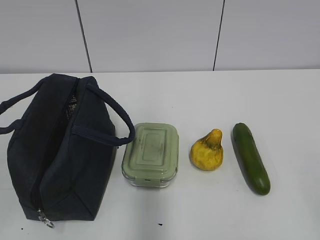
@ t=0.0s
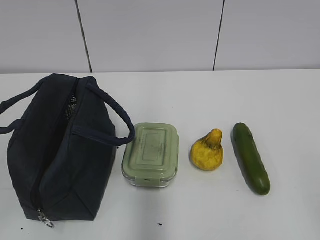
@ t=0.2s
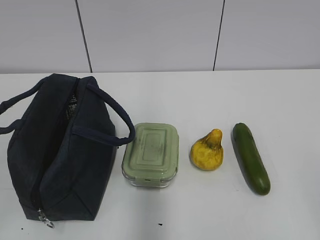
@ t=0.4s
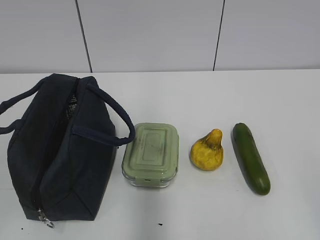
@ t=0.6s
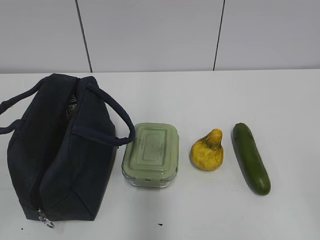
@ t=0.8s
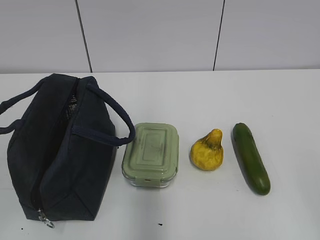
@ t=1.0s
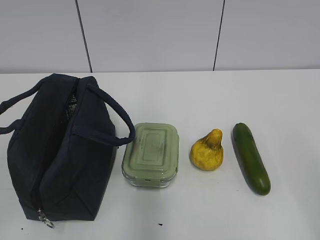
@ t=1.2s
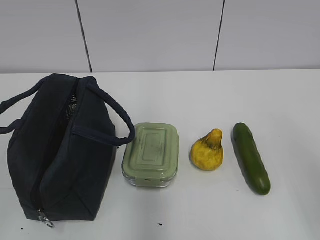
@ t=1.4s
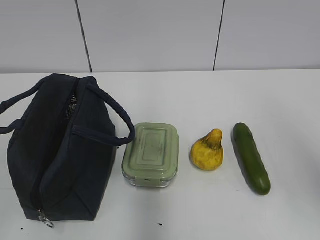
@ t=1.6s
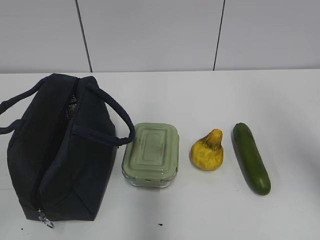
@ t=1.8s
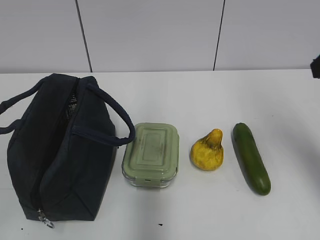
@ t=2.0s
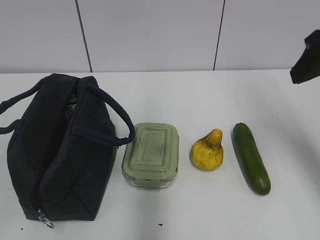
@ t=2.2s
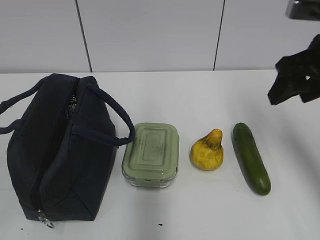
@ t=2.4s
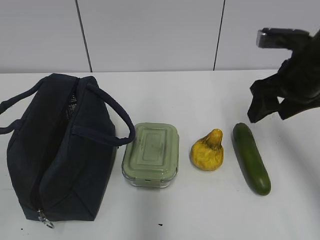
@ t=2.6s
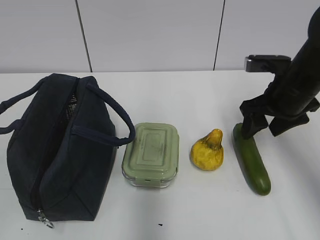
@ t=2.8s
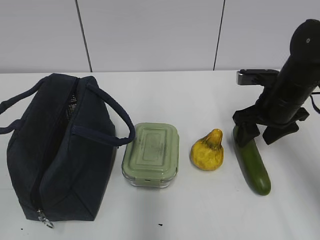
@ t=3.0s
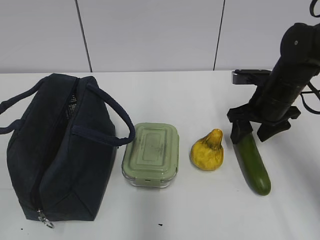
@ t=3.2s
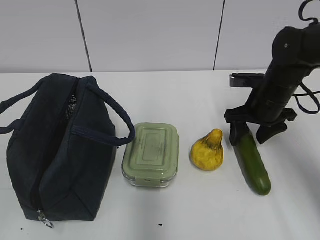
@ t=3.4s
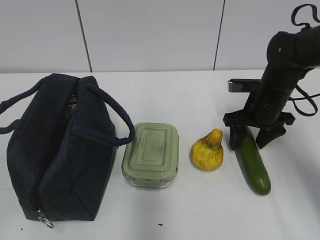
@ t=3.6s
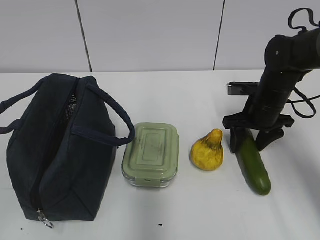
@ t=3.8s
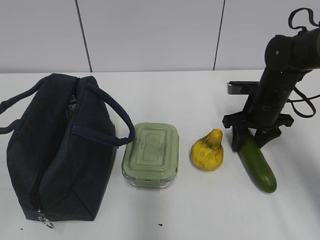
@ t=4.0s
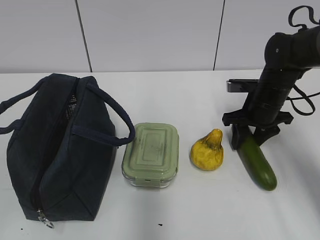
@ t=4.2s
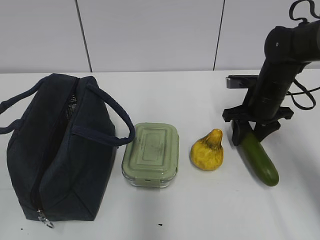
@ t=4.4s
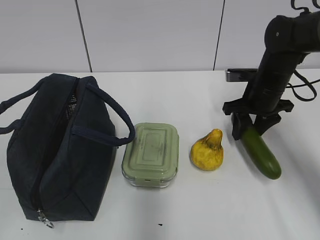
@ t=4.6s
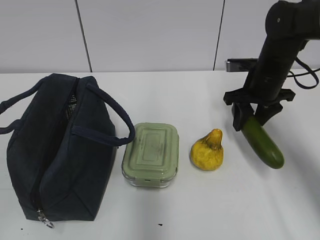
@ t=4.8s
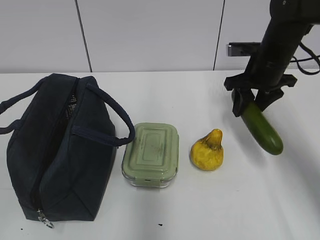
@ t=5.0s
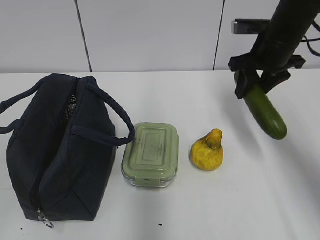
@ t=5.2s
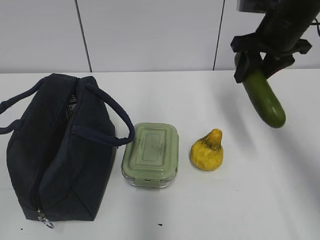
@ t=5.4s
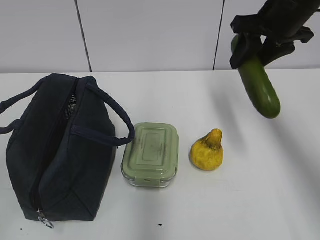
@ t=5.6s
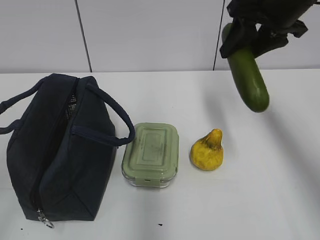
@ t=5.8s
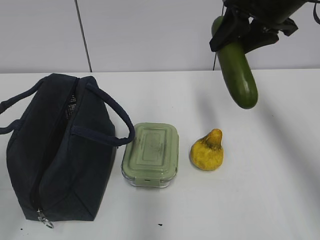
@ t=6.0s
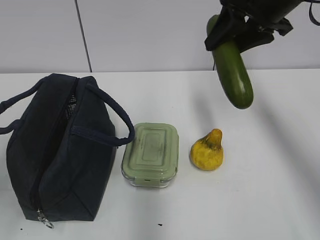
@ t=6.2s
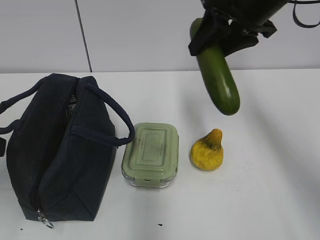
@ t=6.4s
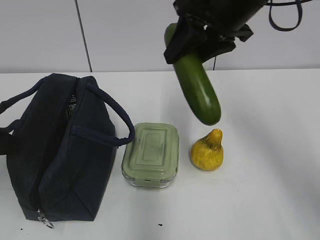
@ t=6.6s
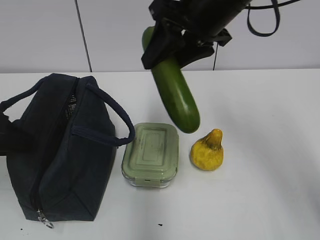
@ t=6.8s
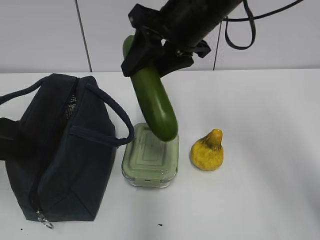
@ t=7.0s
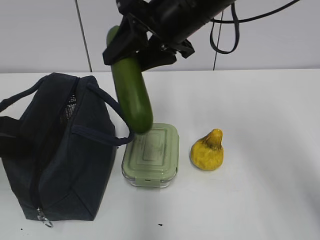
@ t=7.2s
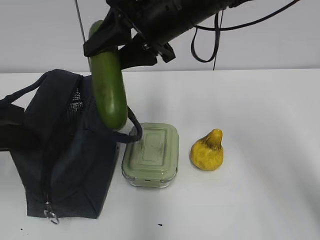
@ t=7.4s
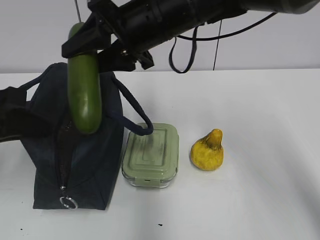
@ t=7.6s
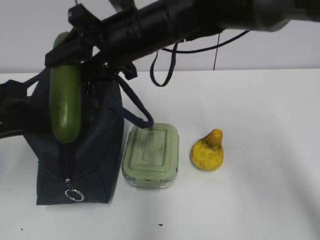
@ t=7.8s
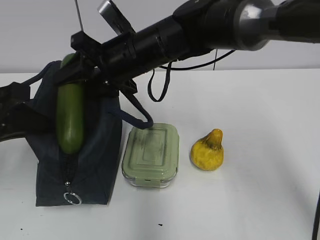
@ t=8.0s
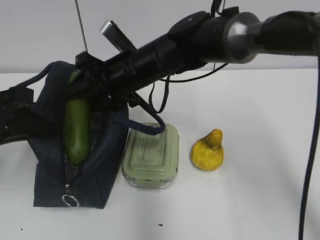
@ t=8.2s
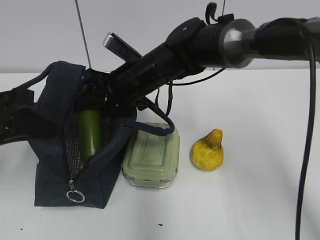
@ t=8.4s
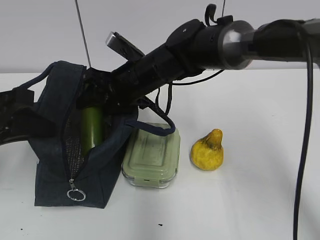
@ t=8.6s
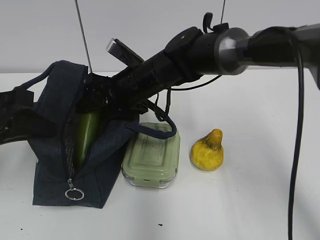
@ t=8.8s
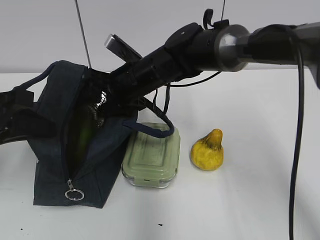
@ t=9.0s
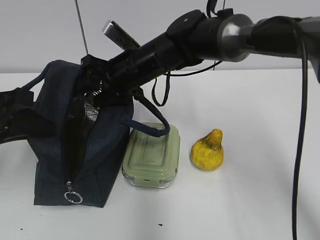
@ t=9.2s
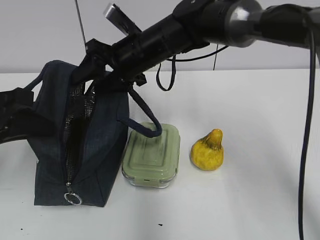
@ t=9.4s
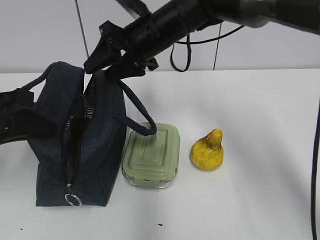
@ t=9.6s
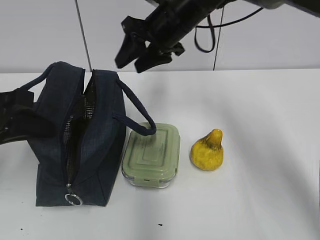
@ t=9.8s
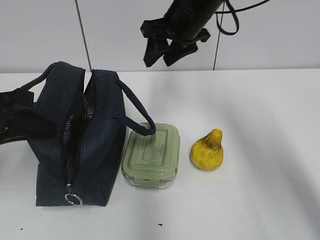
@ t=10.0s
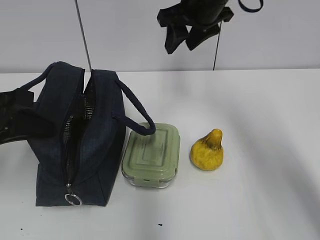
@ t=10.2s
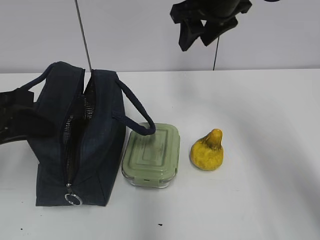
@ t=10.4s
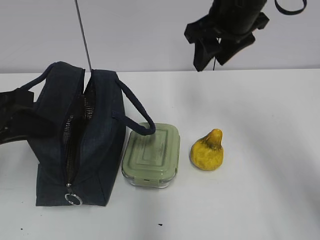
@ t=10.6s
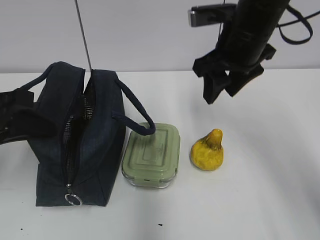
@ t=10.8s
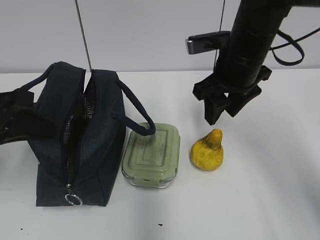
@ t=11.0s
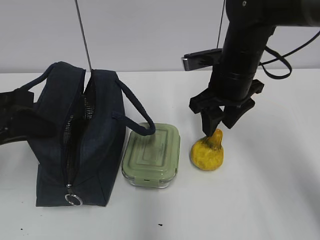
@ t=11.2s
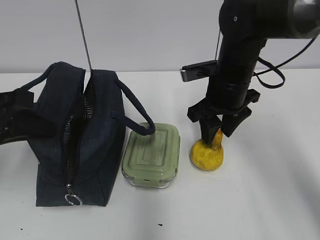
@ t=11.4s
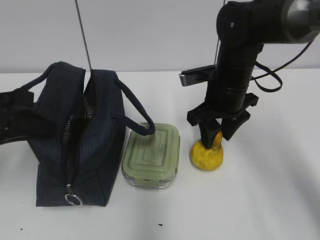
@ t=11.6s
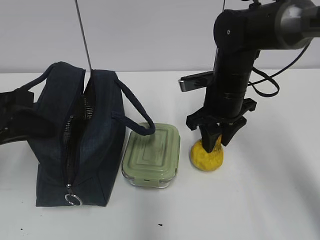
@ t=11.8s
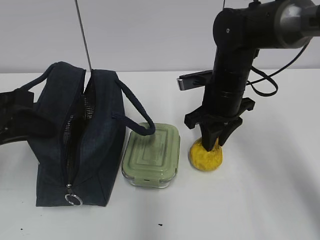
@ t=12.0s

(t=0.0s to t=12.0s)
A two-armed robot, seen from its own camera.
t=1.6s - t=3.0s: The right gripper heads forward and downward, covering approximately 30 cm.
t=3.0s - t=4.4s: The right gripper ends up approximately 5 cm from where it was.
t=4.4s - t=6.0s: The right gripper is displaced upward by about 20 cm; the left gripper goes approximately 10 cm forward.
t=6.0s - t=7.6s: The right gripper moves to the left, approximately 15 cm; the left gripper shifts about 15 cm forward, and closes its fingers.
t=7.6s - t=9.0s: The right gripper goes approximately 10 cm downward.
t=9.0s - t=10.4s: The right gripper is displaced upward and to the right by roughly 20 cm.
t=10.4s - t=12.0s: The right gripper travels downward by some 15 cm.

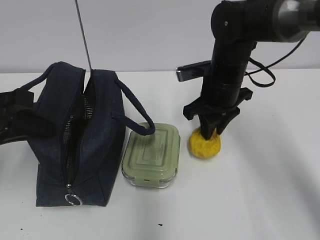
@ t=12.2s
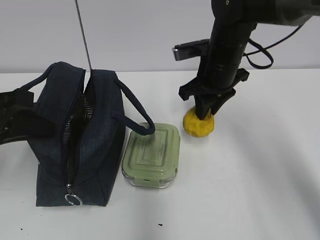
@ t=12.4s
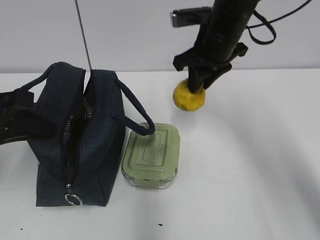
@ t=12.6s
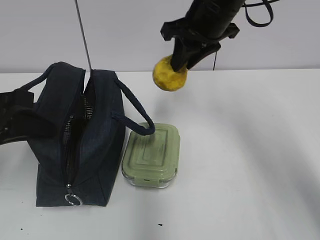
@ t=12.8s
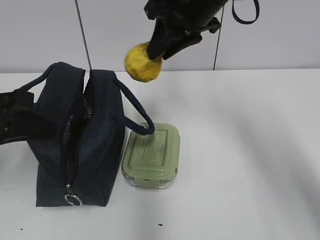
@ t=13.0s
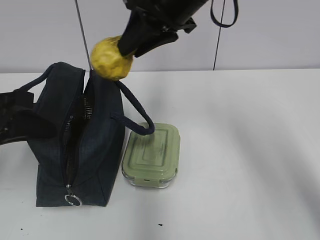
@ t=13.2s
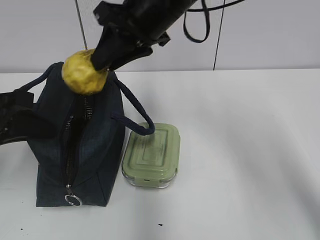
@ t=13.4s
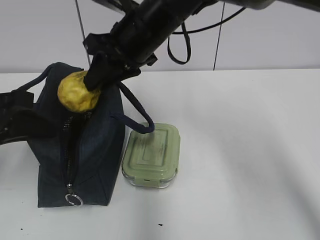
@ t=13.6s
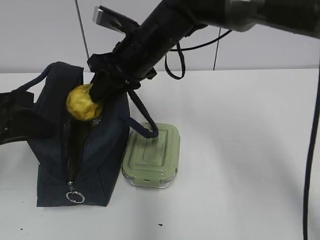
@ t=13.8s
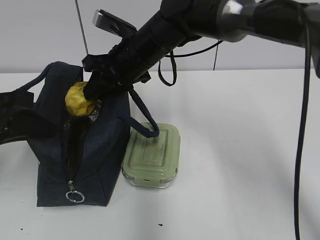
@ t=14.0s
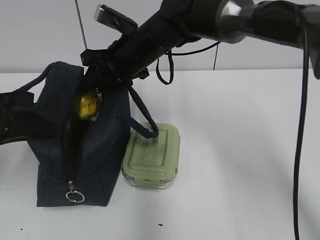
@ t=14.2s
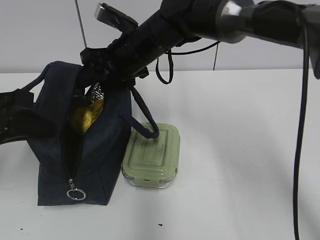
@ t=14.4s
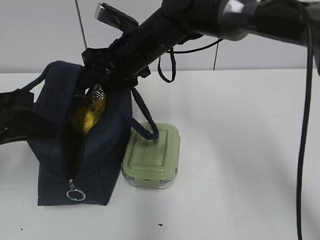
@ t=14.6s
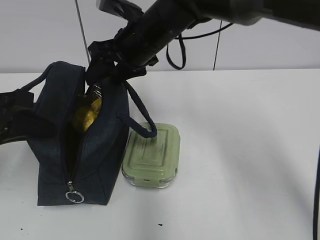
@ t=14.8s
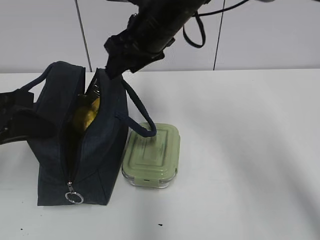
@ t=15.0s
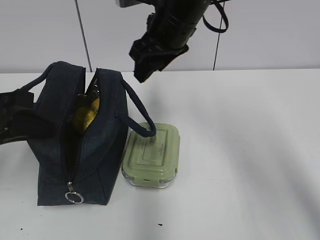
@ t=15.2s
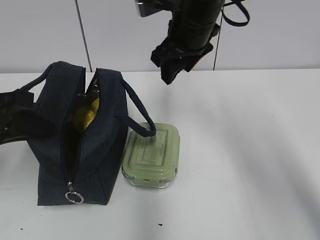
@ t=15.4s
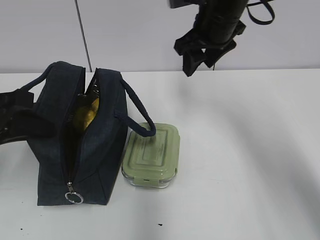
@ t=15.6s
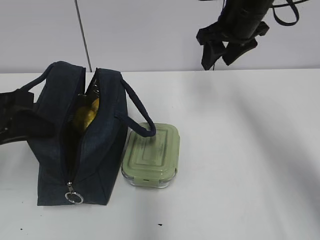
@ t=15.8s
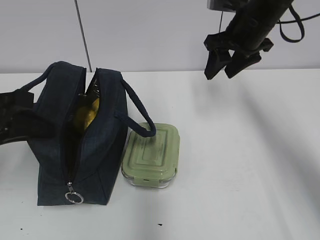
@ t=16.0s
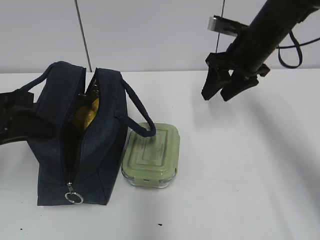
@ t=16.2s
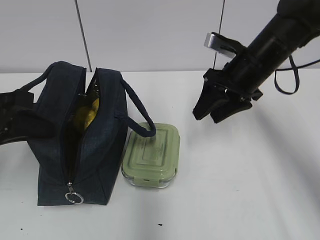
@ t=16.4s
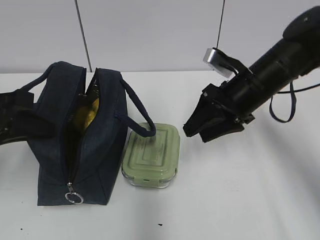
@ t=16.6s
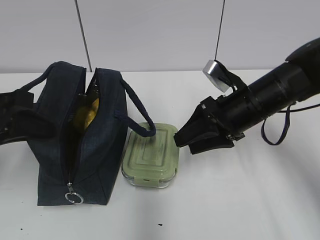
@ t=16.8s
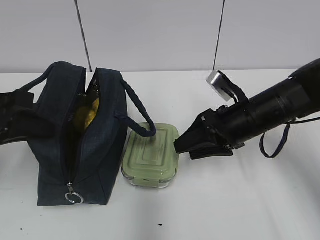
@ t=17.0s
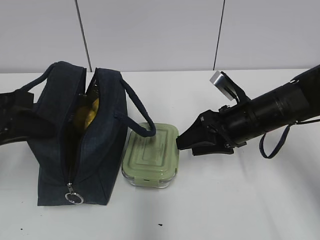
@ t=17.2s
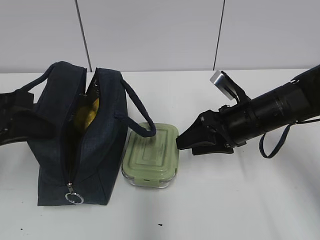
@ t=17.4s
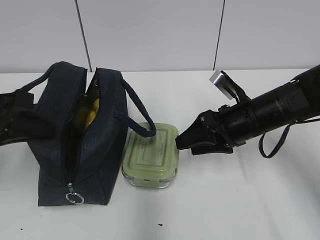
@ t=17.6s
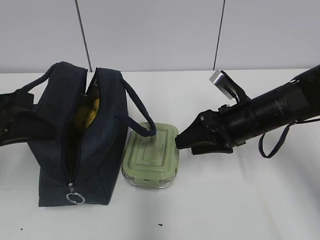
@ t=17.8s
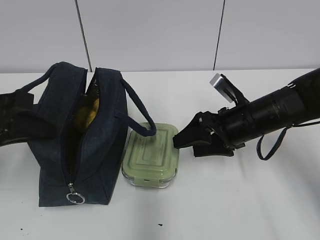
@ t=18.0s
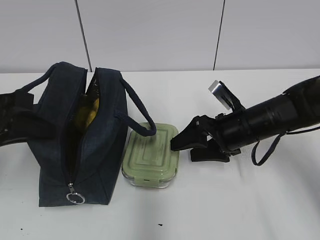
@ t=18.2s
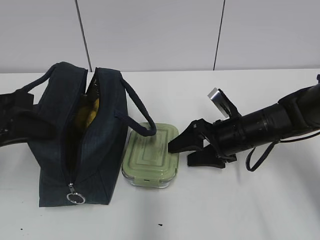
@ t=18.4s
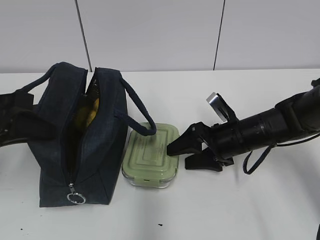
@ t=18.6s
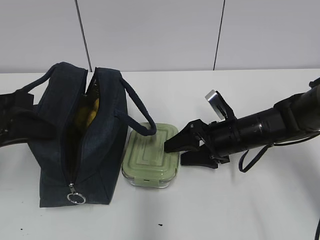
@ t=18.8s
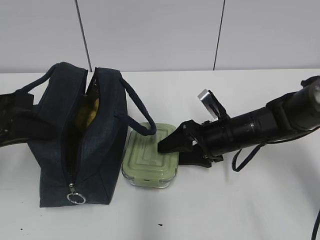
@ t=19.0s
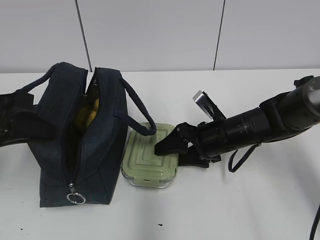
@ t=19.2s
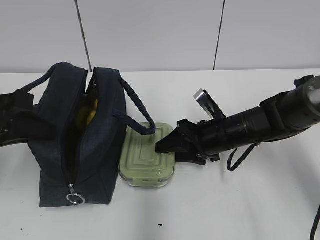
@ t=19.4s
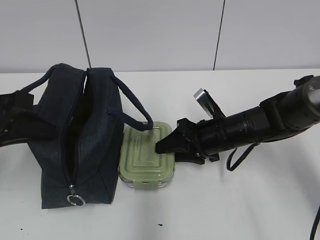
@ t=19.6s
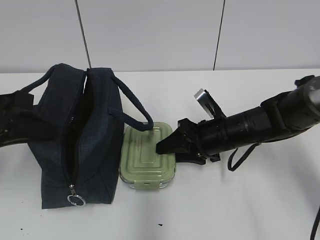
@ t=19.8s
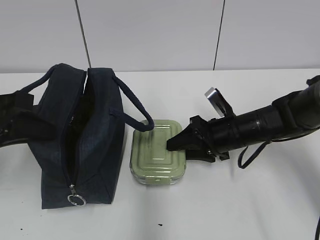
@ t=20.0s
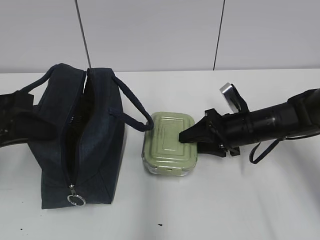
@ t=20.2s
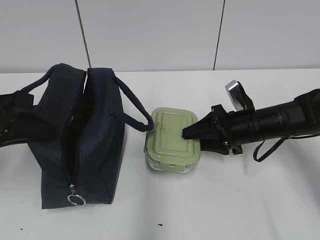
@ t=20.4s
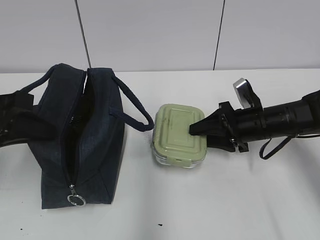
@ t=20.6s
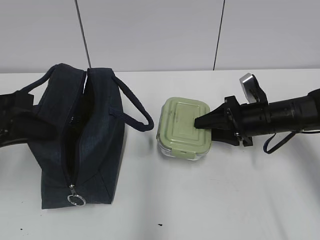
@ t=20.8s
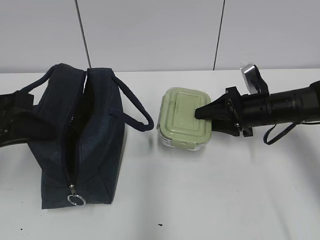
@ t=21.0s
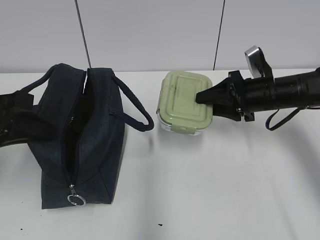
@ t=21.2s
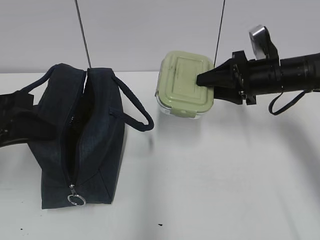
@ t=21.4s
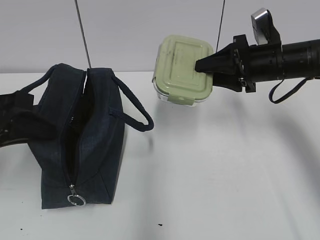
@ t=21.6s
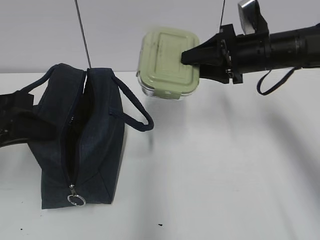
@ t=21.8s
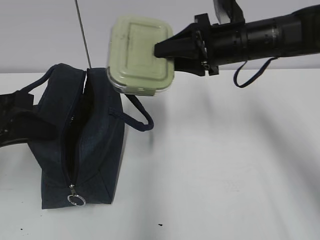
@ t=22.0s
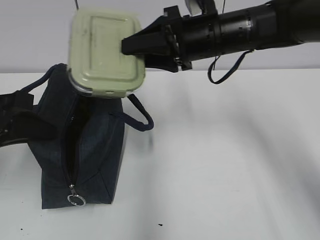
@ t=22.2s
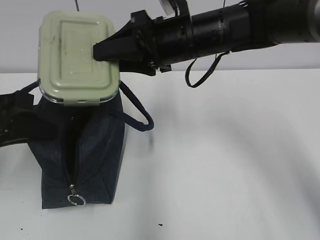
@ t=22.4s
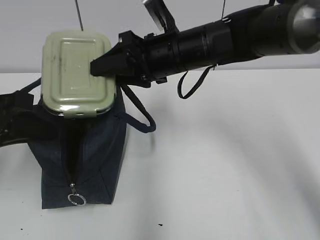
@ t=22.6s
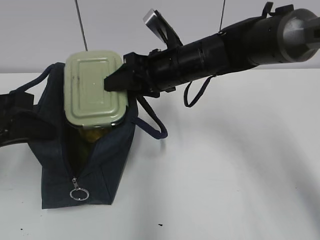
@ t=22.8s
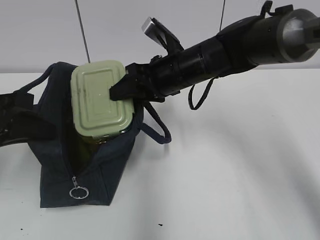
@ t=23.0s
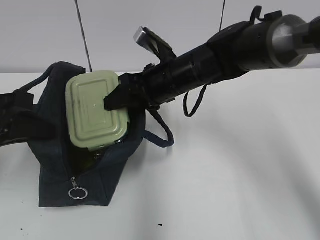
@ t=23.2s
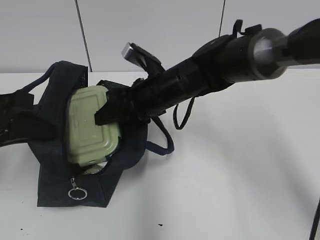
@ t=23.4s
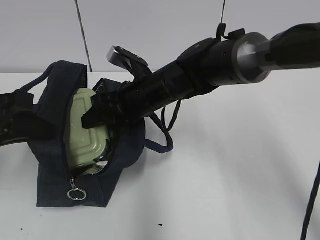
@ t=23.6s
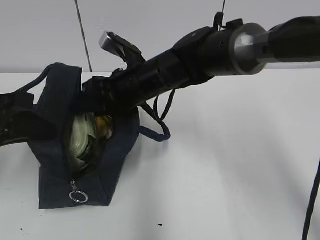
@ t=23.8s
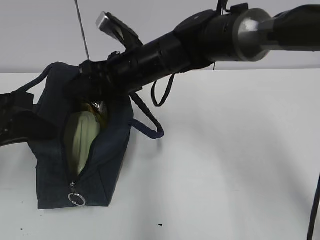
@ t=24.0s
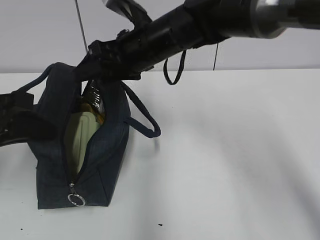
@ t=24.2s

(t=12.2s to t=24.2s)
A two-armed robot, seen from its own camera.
t=12.2s - t=13.8s: The right gripper shifts about 15 cm to the left and upward.
t=13.8s - t=15.2s: The right gripper goes some 5 cm to the right and upward, and opens its fingers.
t=15.2s - t=16.6s: The right gripper travels to the right and downward by approximately 15 cm.
t=16.6s - t=18.2s: The right gripper heads downward, covering approximately 5 cm.
t=18.2s - t=19.8s: The right gripper closes its fingers.
t=19.8s - t=21.2s: The right gripper goes some 10 cm to the right and upward.
t=21.2s - t=22.6s: The right gripper shifts approximately 20 cm to the left and upward.
t=22.6s - t=24.2s: The right gripper moves approximately 5 cm downward and comes back.
